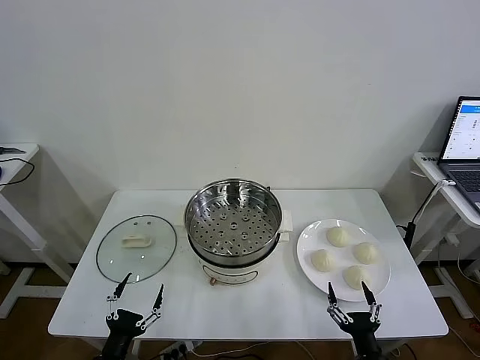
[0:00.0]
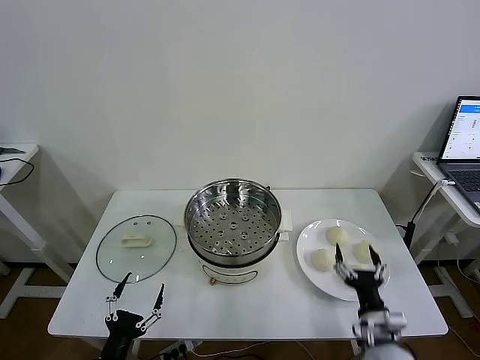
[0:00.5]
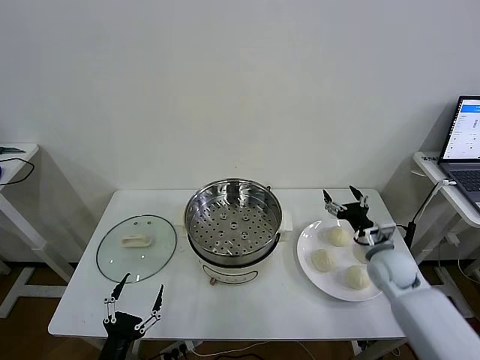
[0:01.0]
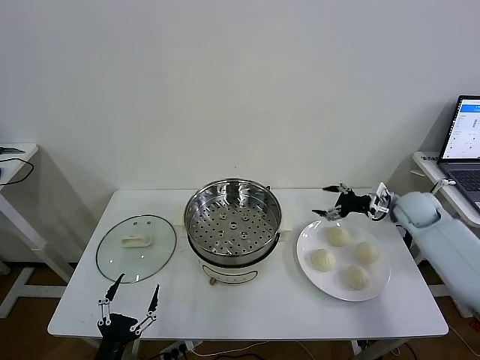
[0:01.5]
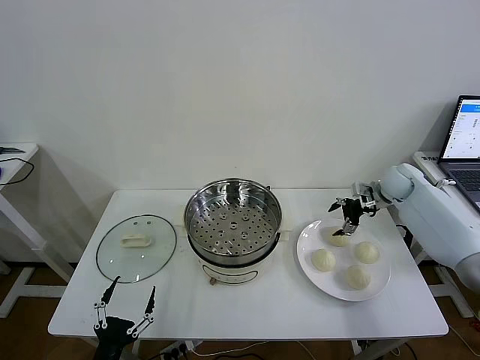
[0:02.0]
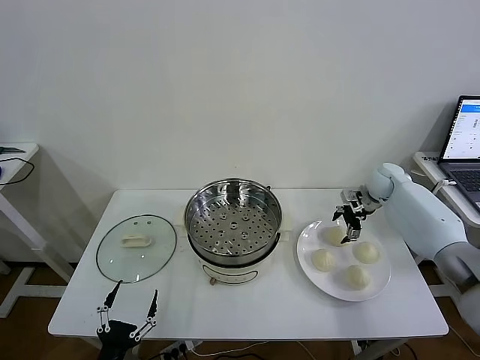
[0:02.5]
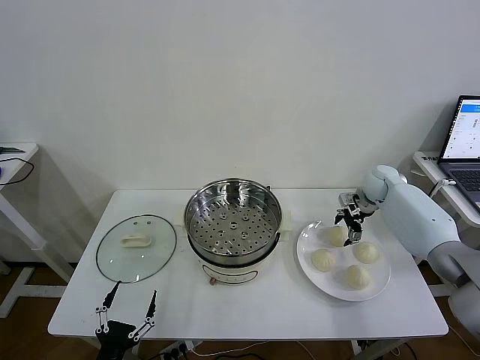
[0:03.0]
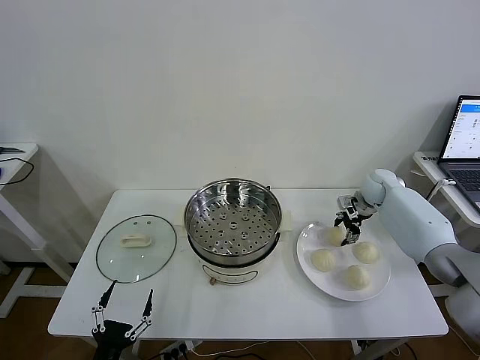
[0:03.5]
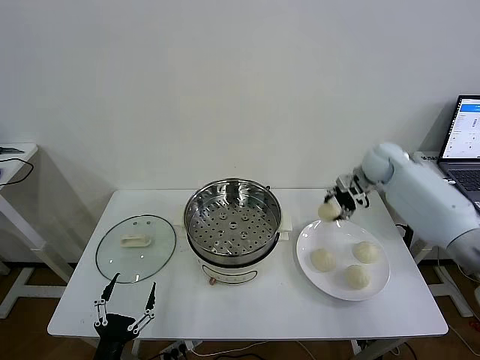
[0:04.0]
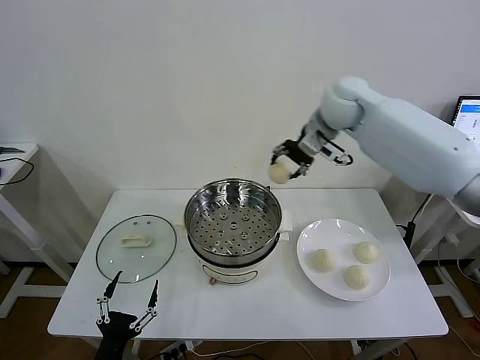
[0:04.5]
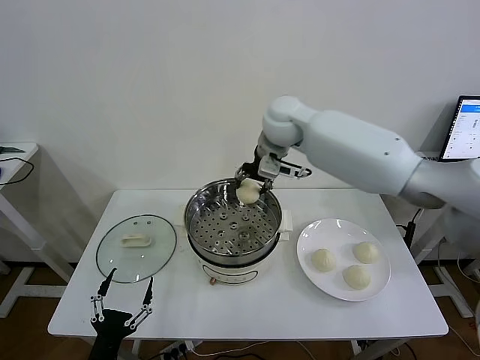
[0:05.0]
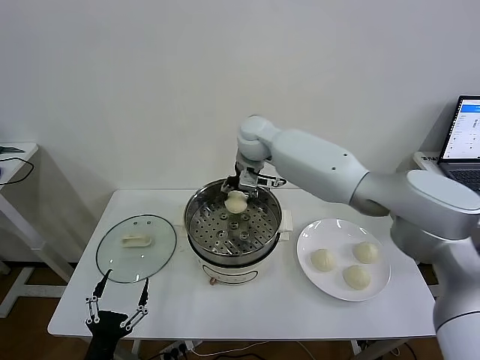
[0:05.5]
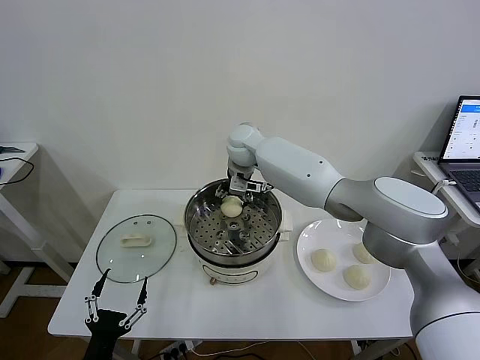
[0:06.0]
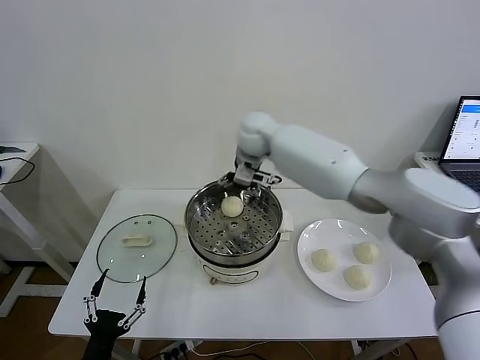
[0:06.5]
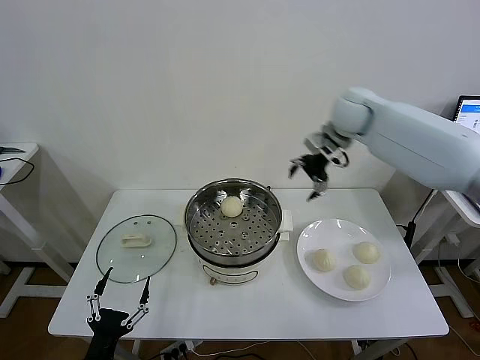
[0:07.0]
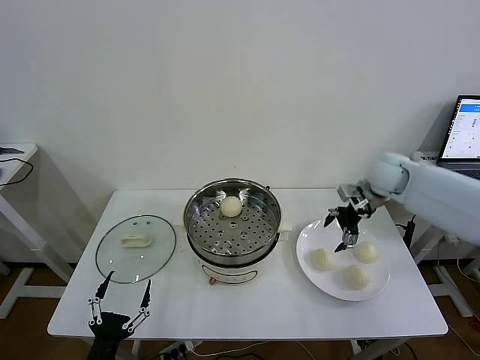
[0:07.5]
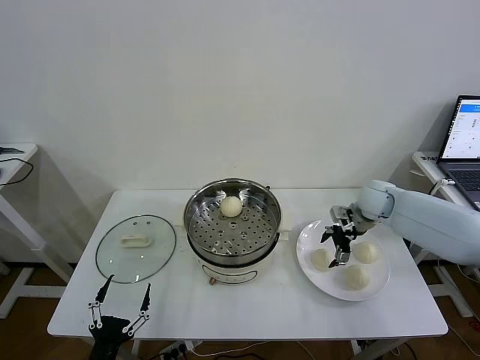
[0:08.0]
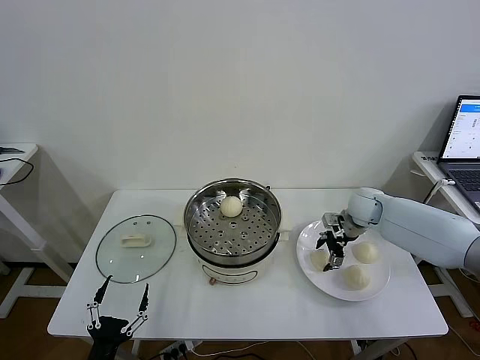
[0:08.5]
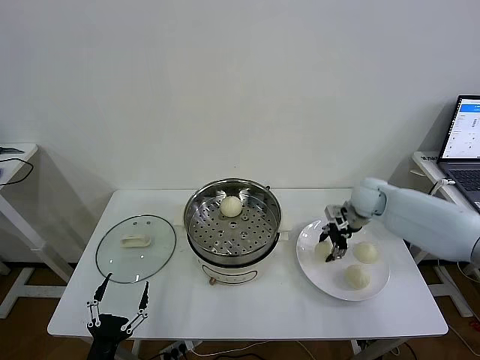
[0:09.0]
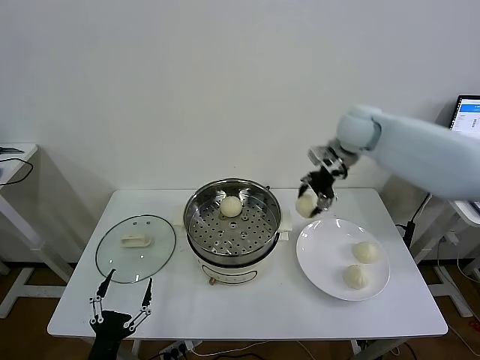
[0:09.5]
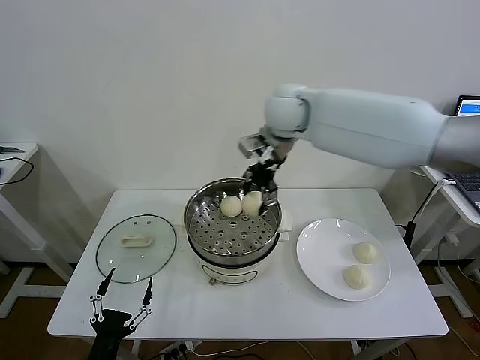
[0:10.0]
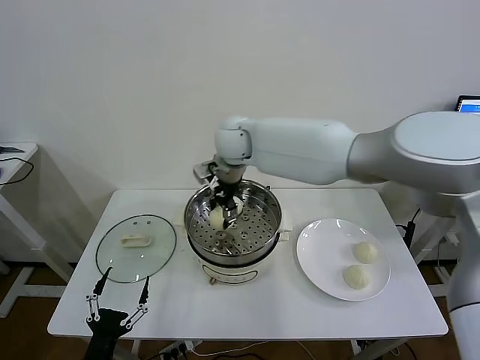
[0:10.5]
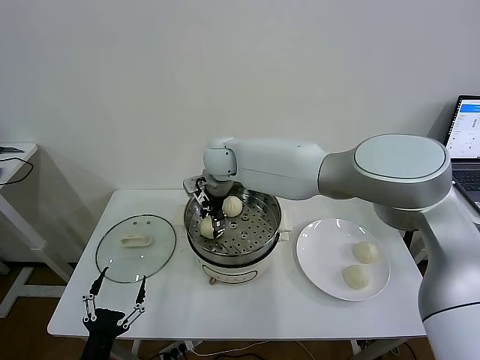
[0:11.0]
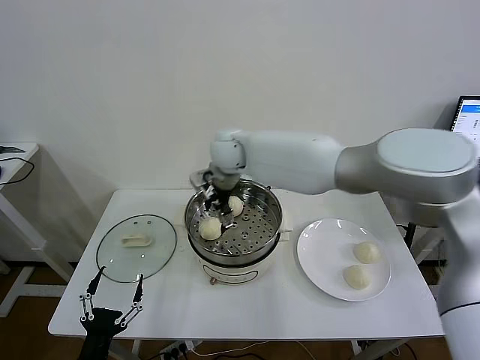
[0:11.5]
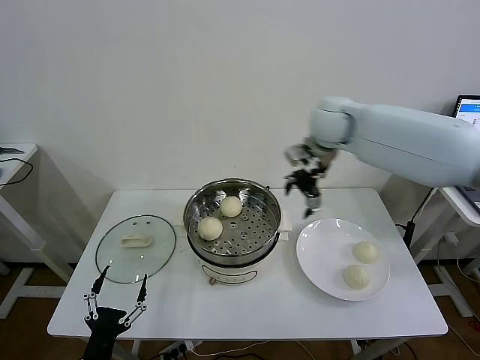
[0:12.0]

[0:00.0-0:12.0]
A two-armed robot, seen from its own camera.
Task of the whole recording: take steamed baozi put them in steamer then cover it.
Step, 0:00.0 to 0:03.5: Grasp the baozi in the plate with right gripper.
Step, 0:04.0 to 0:06.0: Place the baozi on the steamer with right gripper.
Step, 0:06.5 to 0:08.5: Grasp the baozi in the plate with right gripper.
Step, 0:09.0 to 0:11.0: Place the baozi on the steamer with right gripper.
0:02.0 to 0:04.0: The right gripper goes about 10 cm upward and to the left, and closes.
0:04.0 to 0:06.0: The right gripper shifts some 30 cm to the left, and opens its fingers.
0:06.0 to 0:08.0: The right gripper goes about 35 cm to the right, and opens up.
0:08.0 to 0:10.0: The right gripper is displaced to the left and upward by approximately 35 cm, and closes up.
0:10.0 to 0:12.0: The right gripper is displaced to the right by approximately 15 cm, and opens up.

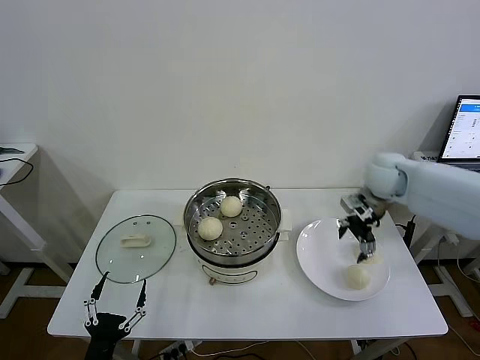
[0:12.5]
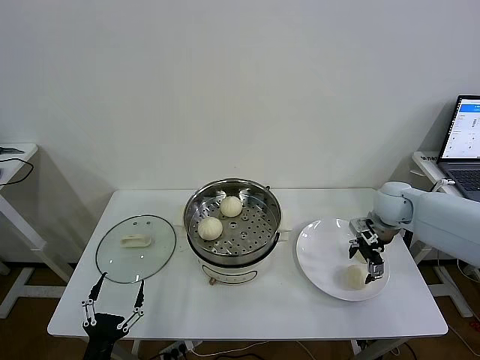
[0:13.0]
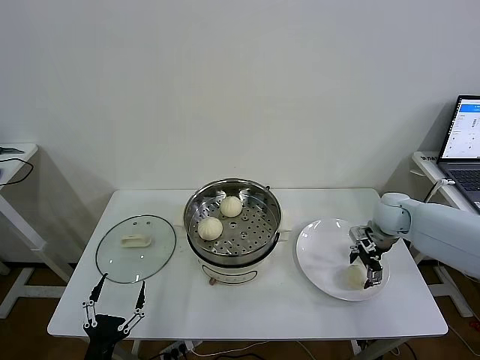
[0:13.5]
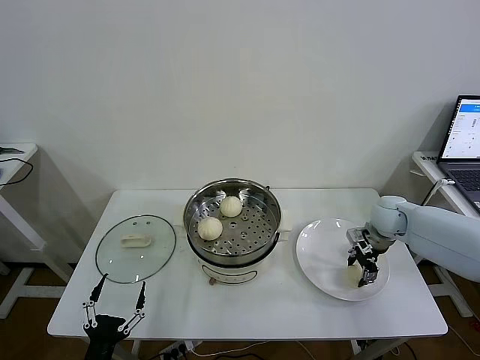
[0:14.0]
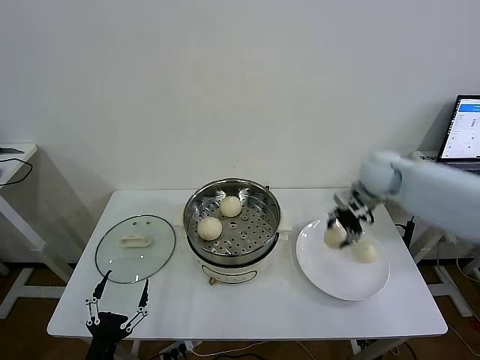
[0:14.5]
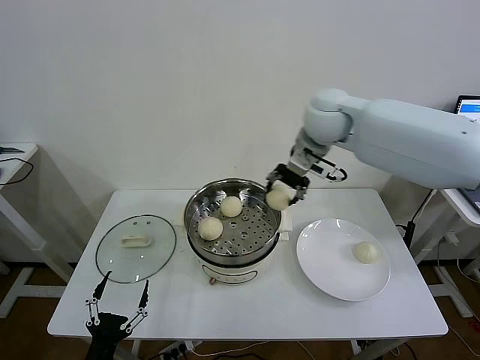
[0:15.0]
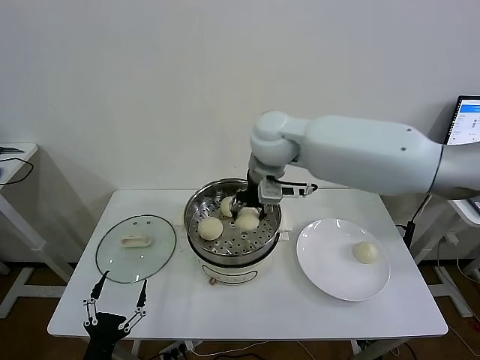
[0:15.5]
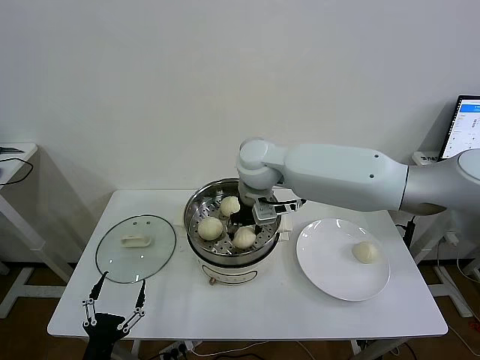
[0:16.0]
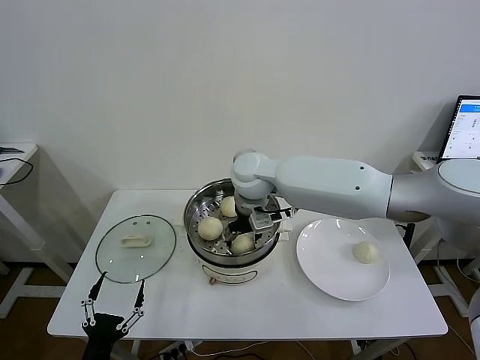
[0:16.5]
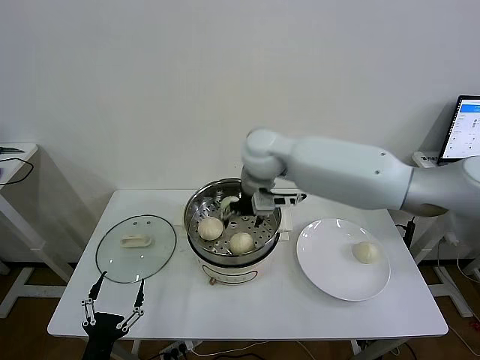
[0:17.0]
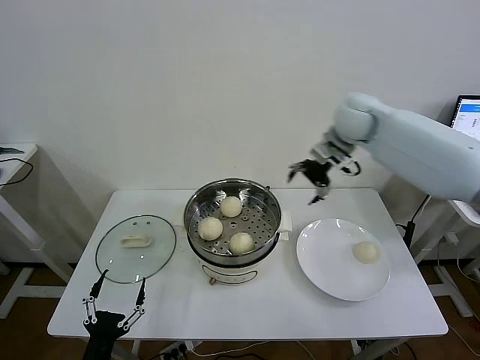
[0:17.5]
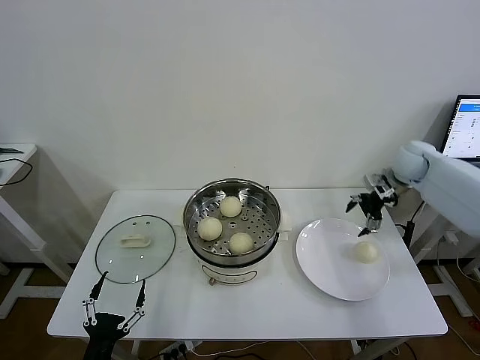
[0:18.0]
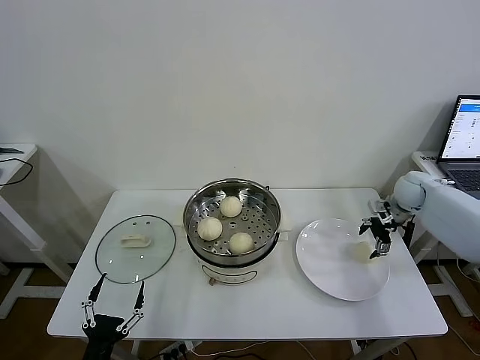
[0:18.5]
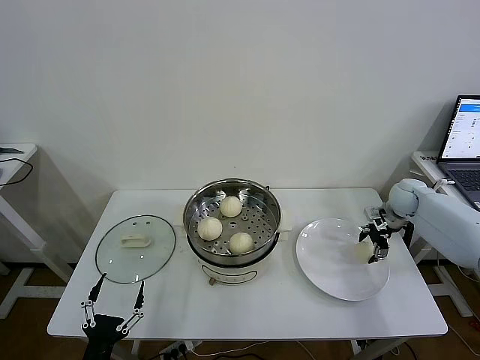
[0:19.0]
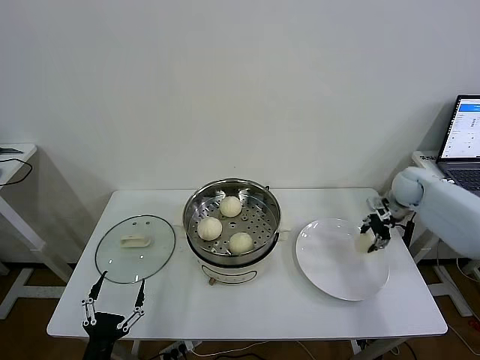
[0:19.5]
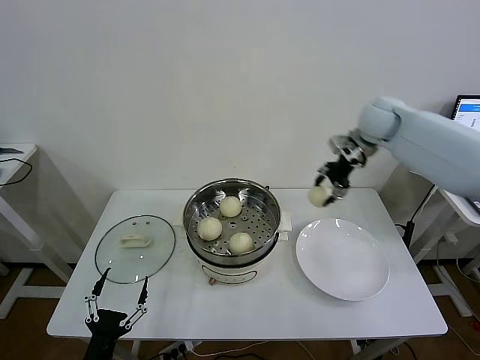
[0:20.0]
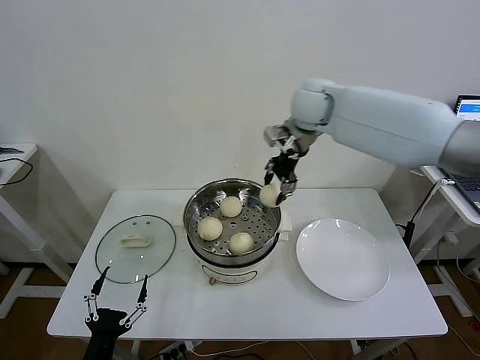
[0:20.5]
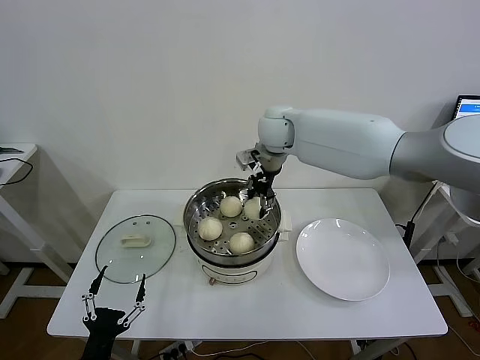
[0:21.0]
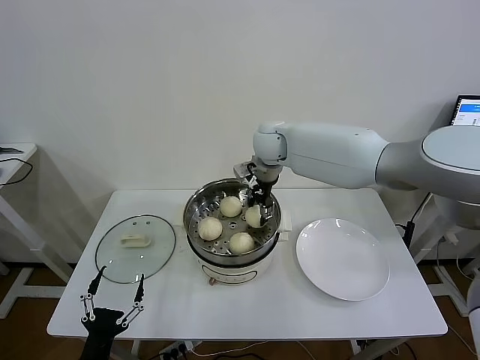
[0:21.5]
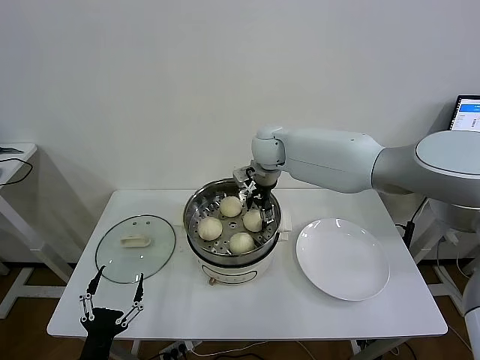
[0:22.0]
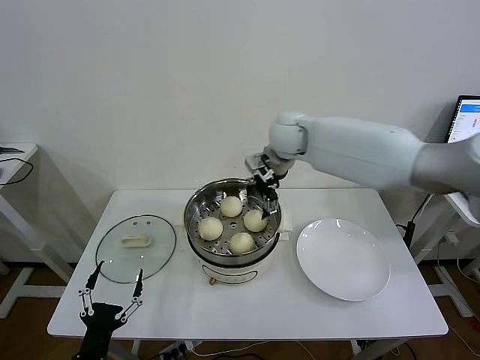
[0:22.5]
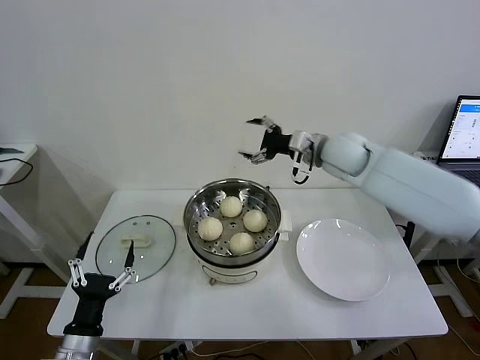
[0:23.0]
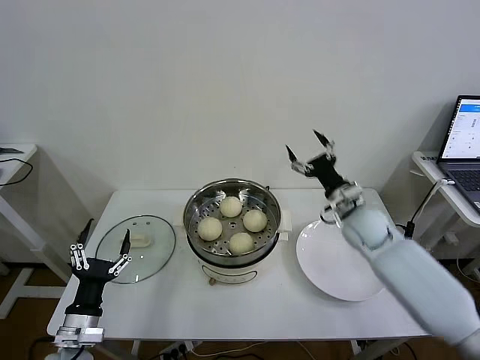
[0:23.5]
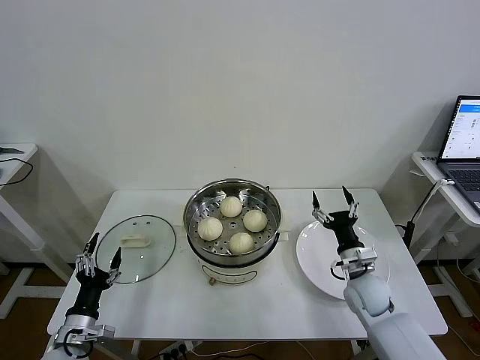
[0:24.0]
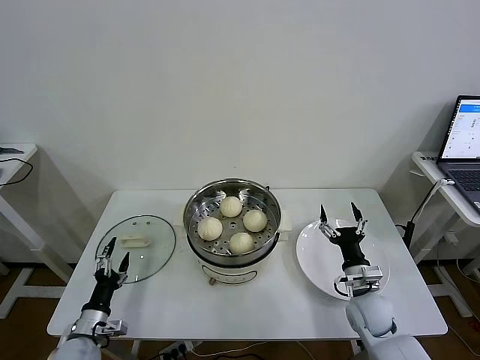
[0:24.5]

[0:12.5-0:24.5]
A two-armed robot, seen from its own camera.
Task of the whole recording: take steamed baozi put them in steamer then cover it.
Step, 0:12.5 to 0:14.0: Grasp the baozi in the plate with right gripper.
Step, 0:14.5 to 0:16.5: Place the baozi on the steamer with right gripper.
Step, 0:17.0 to 0:19.0: Grasp the baozi in the plate with right gripper.
Step, 0:19.5 to 0:22.0: Place the baozi on the steamer with right gripper.
0:12.5 to 0:14.5: The right gripper reaches roughly 10 cm downward, then returns, and closes up.
0:14.5 to 0:16.5: The right gripper goes about 30 cm to the left, and opens.
0:16.5 to 0:18.5: The right gripper is displaced to the right by some 40 cm.
0:18.5 to 0:20.5: The right gripper goes some 40 cm to the left and upward, and closes up.
0:20.5 to 0:22.5: The right gripper is displaced downward by about 5 cm, and opens.
0:22.5 to 0:24.5: The right gripper goes some 50 cm downward, backward and to the right; the left gripper moves forward, downward and to the left, roughly 15 cm.

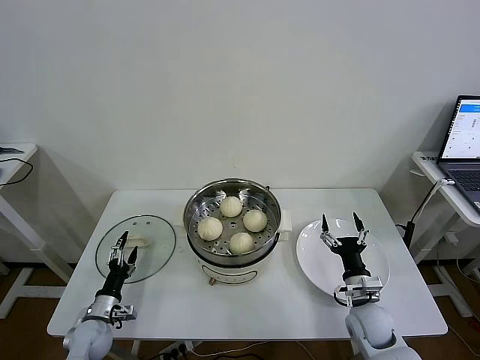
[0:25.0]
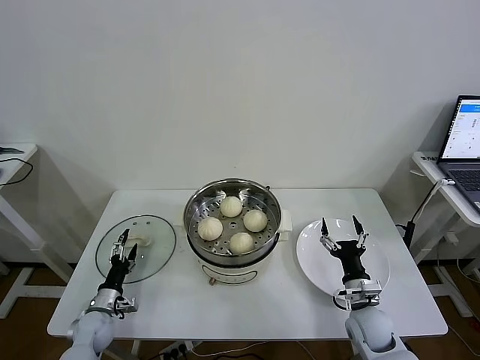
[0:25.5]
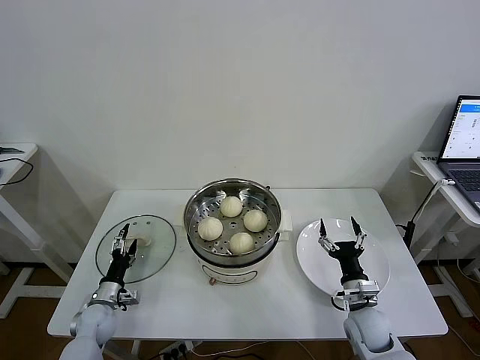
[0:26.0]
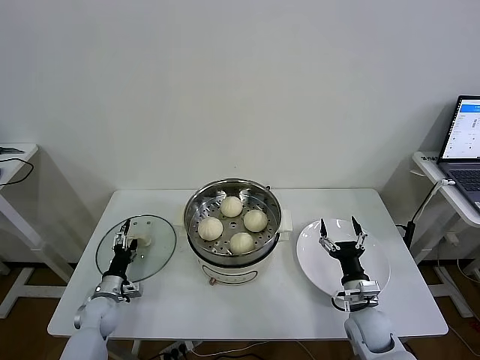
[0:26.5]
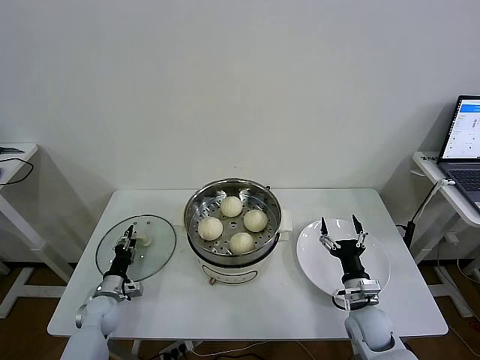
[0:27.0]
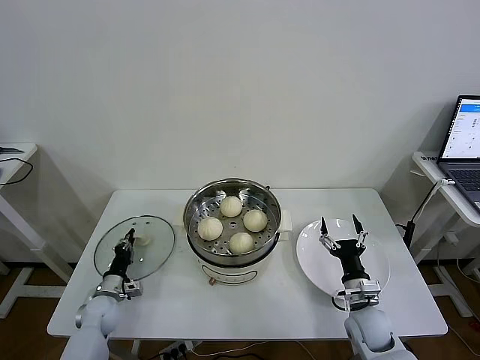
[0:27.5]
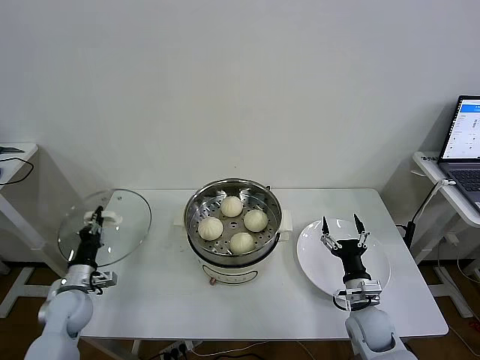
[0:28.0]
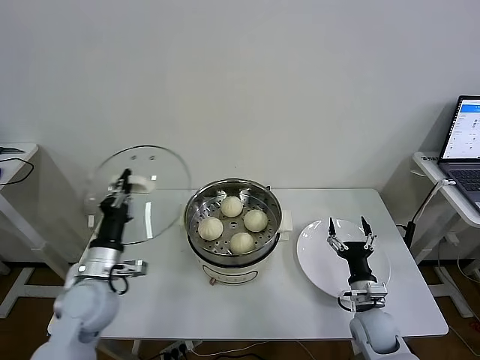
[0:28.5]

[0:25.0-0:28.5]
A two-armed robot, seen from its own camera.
Task of the whole recording: take steamed baozi put them in steamer then cover it.
Step, 0:25.0 to 0:27.5: Grasp the pot lid with left gripper.
0:25.0 to 0:27.0: The left gripper travels forward by some 5 cm, and closes its fingers.
0:27.0 to 0:28.5: The left gripper is displaced upward by approximately 20 cm, and closes up.
